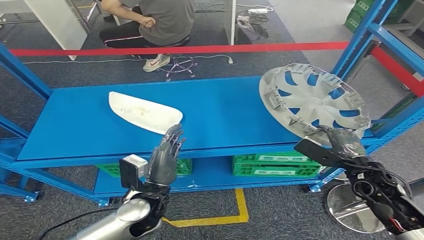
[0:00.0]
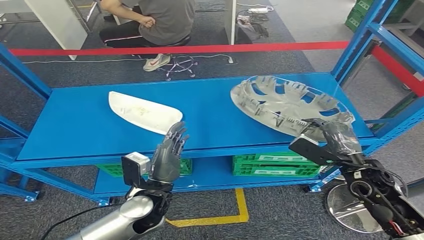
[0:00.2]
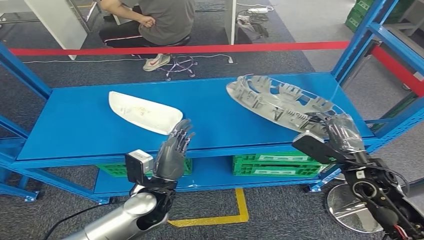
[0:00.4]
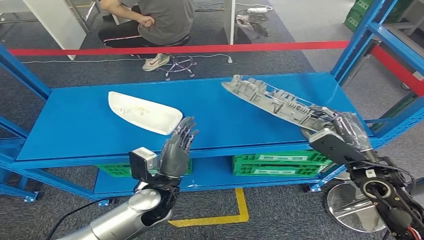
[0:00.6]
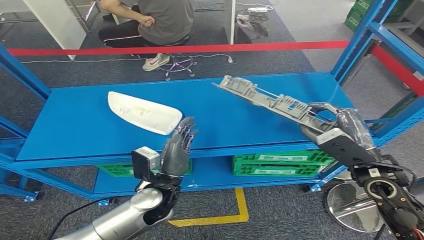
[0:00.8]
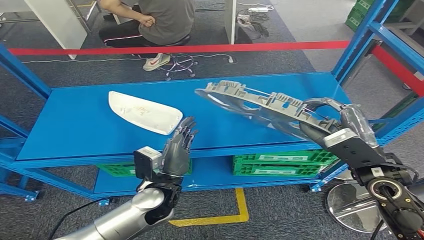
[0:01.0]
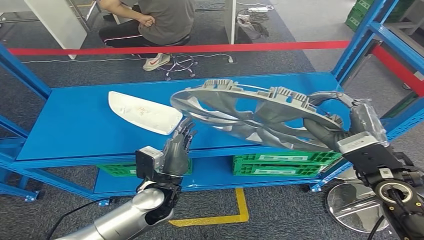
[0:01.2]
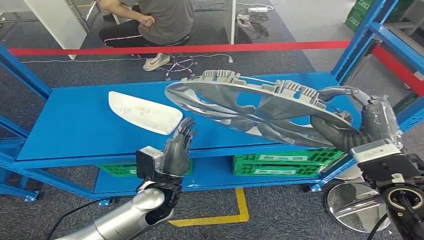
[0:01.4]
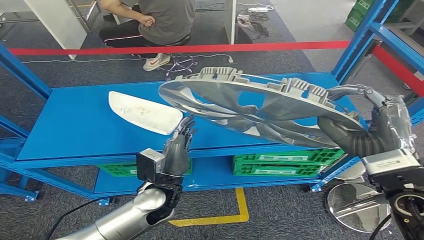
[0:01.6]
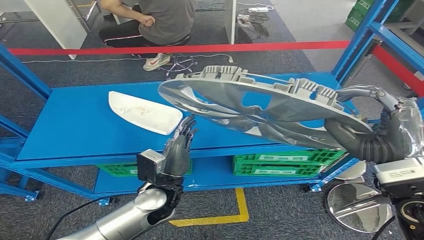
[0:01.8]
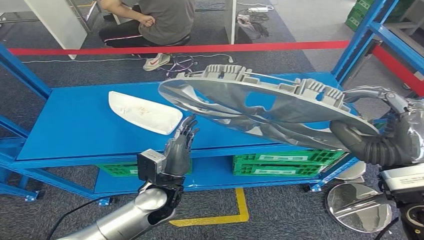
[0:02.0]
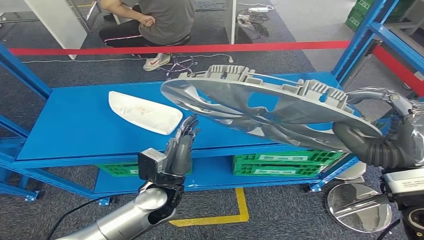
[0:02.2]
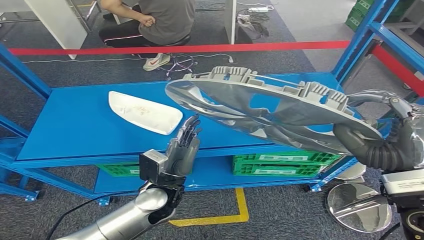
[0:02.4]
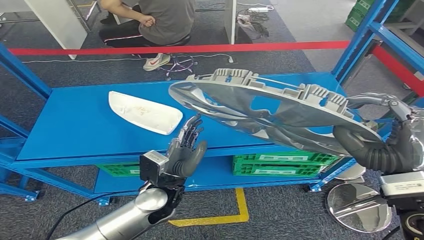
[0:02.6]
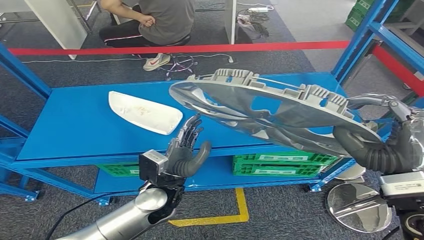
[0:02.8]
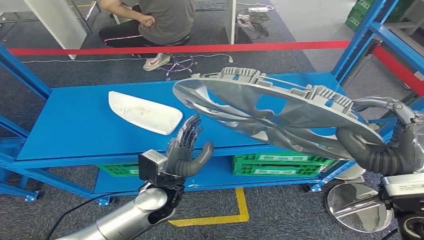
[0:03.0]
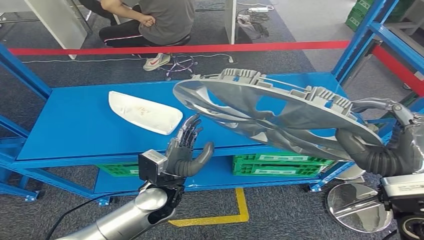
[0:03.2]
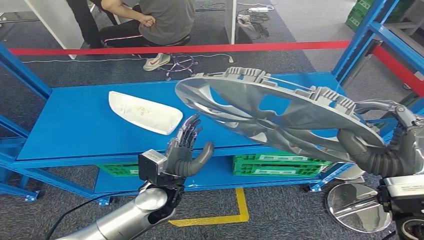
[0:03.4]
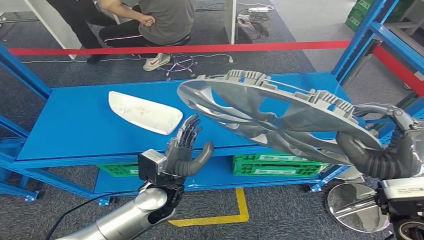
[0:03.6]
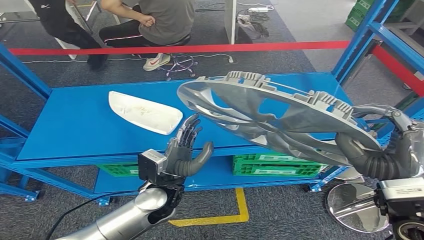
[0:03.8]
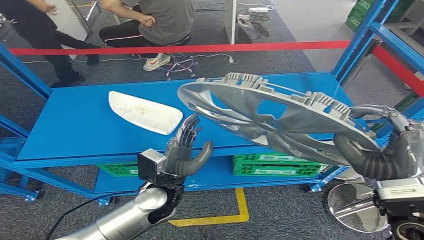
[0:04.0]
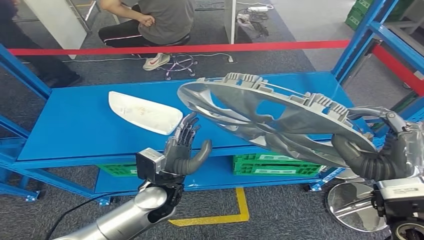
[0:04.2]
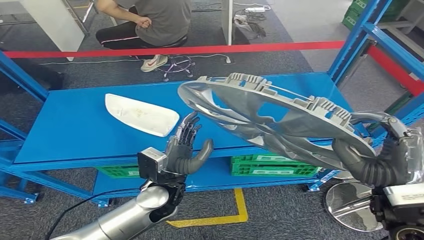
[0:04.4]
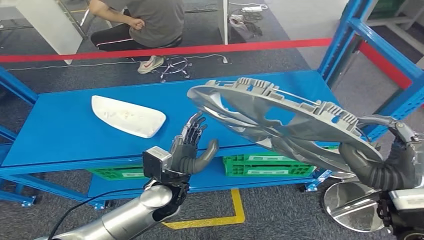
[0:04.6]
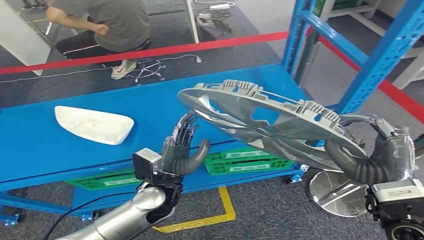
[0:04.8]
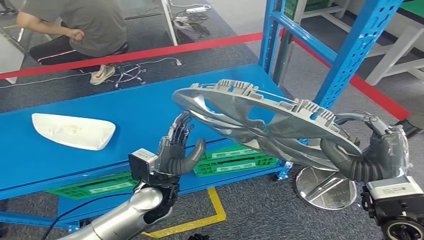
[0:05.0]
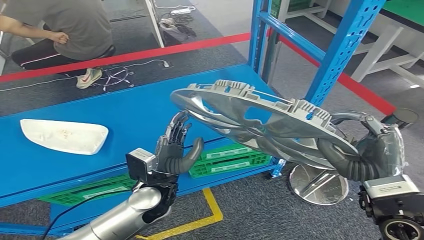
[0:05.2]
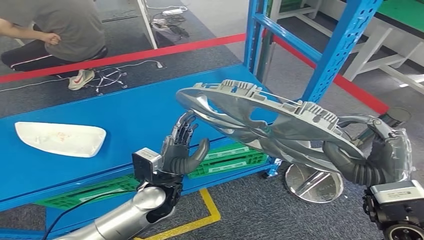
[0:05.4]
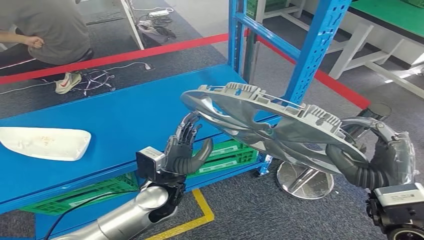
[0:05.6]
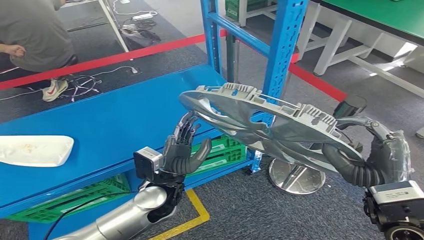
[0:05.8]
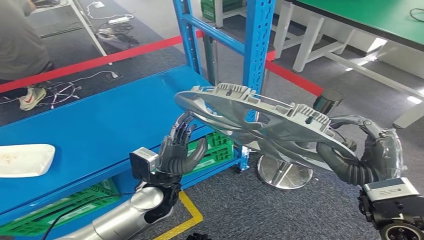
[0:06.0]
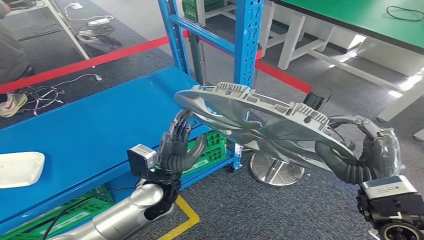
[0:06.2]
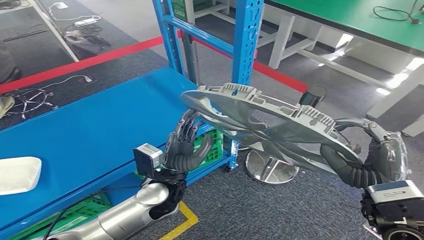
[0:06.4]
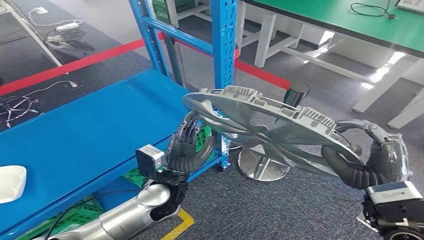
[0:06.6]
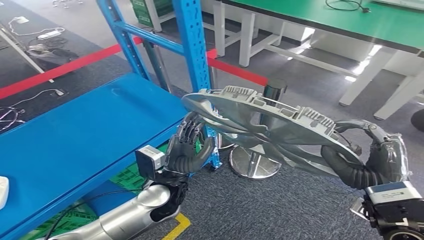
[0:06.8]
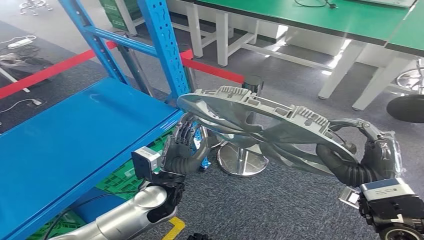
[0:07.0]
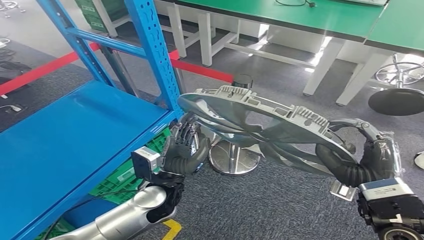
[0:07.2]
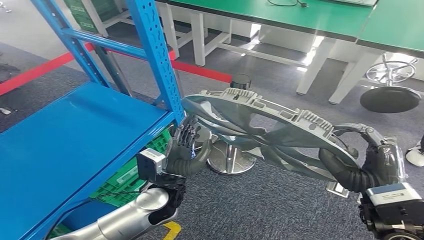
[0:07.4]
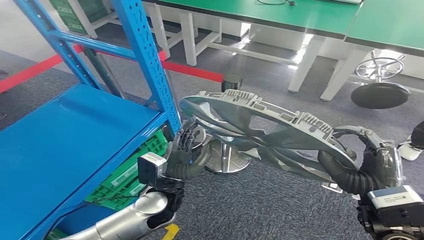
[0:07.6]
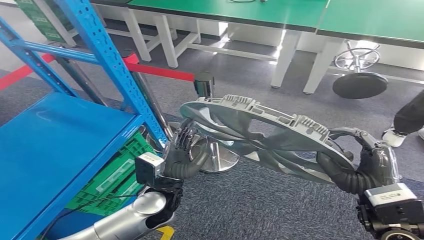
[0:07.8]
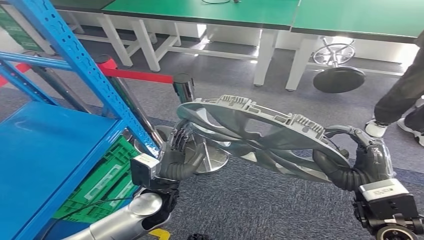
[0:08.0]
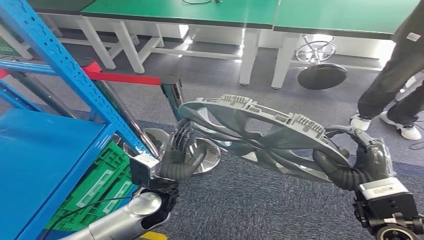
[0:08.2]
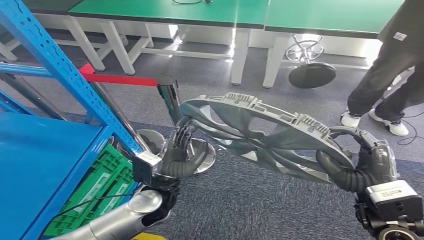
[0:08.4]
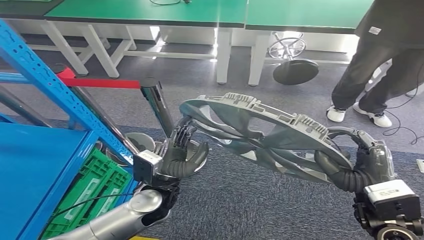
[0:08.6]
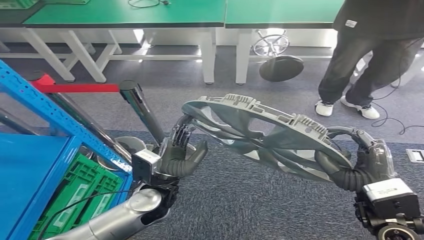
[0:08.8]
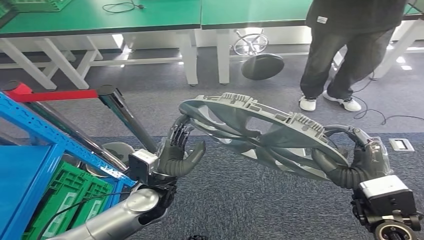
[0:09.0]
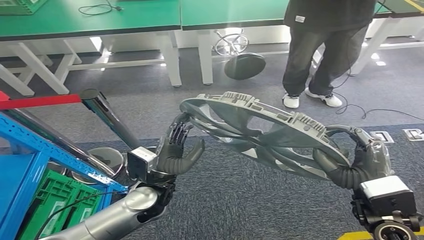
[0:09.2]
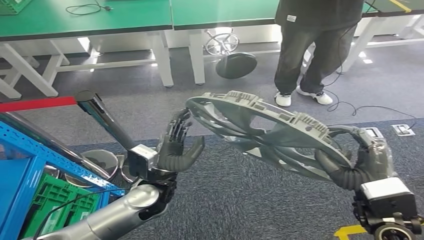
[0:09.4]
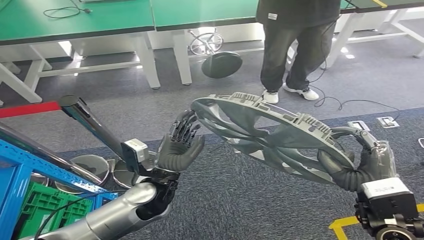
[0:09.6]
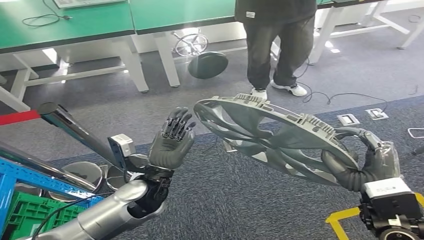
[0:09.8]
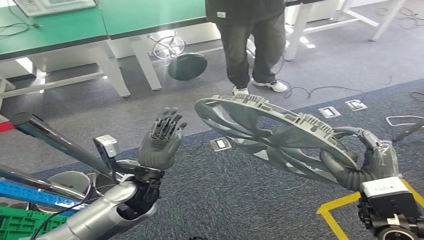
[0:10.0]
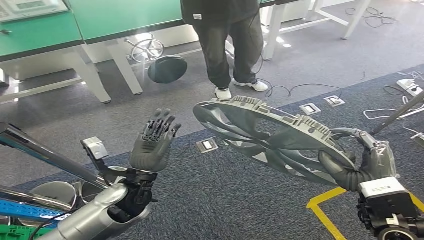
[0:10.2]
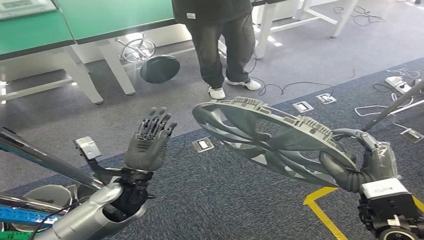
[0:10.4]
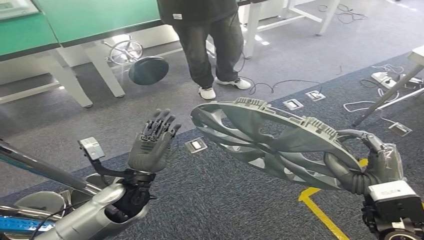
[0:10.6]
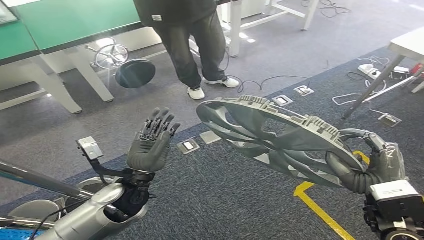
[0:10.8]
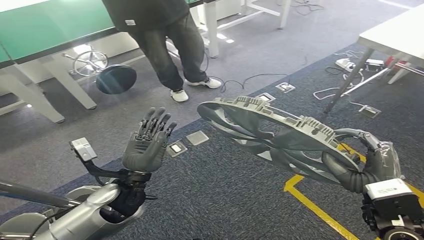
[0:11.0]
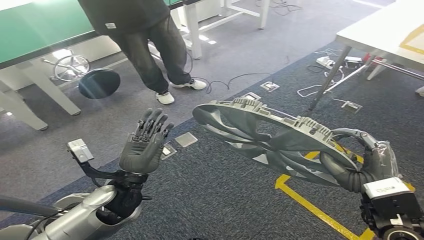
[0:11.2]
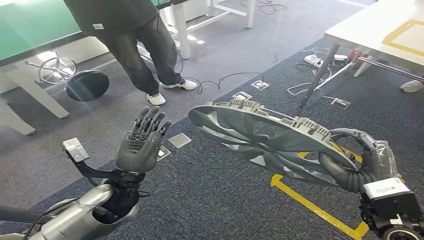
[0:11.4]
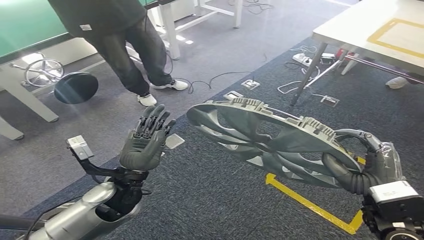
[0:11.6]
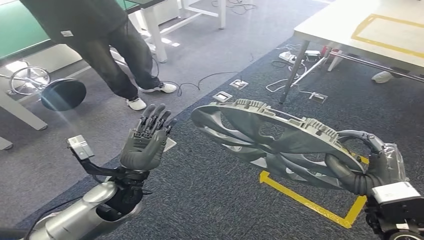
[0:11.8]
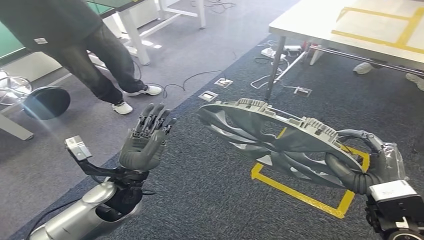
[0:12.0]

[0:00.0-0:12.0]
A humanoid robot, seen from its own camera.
0:01.6 to 0:03.0: The hands stay close to where they were, moving slightly.

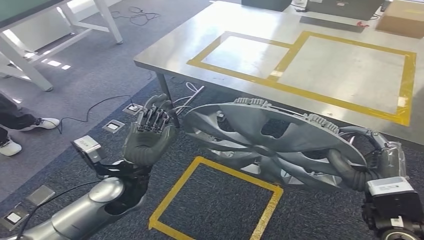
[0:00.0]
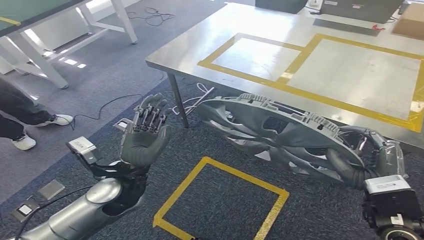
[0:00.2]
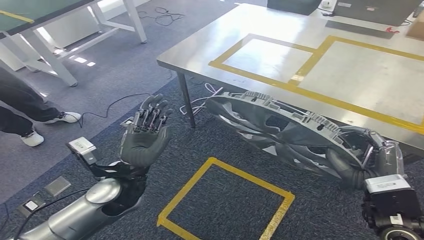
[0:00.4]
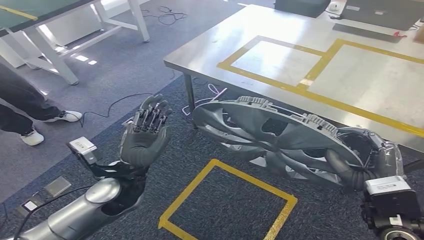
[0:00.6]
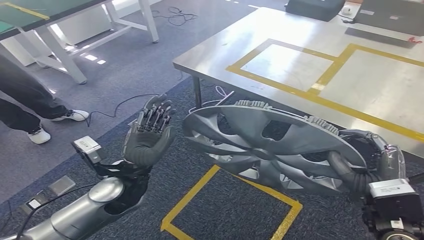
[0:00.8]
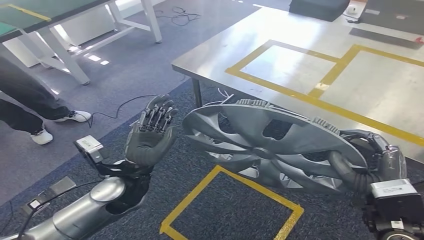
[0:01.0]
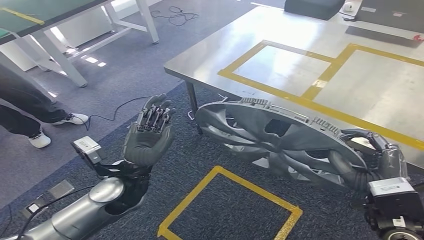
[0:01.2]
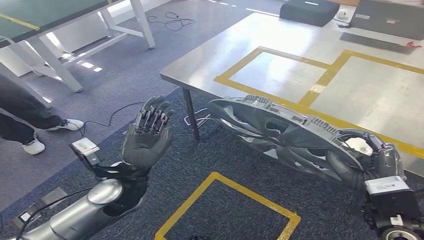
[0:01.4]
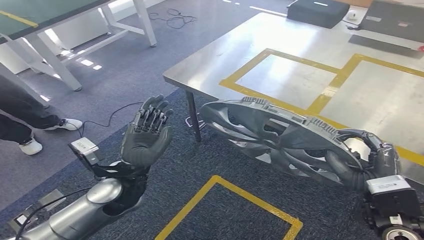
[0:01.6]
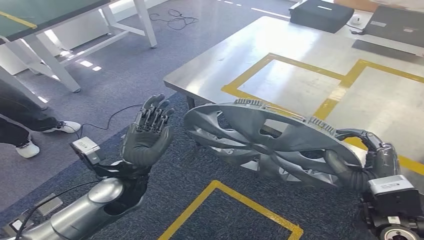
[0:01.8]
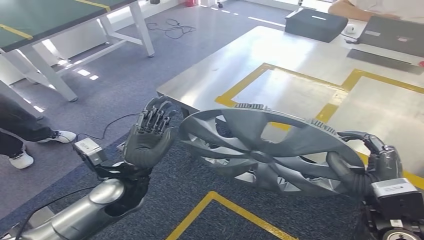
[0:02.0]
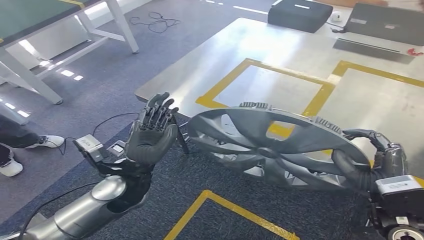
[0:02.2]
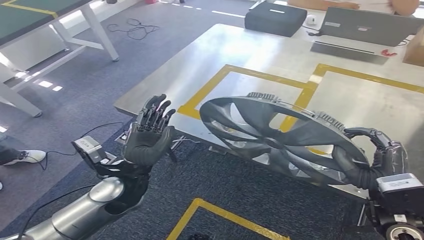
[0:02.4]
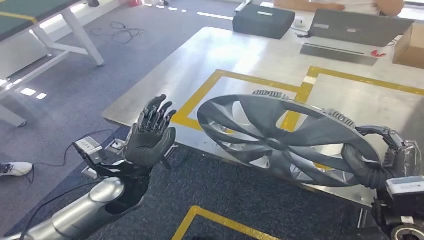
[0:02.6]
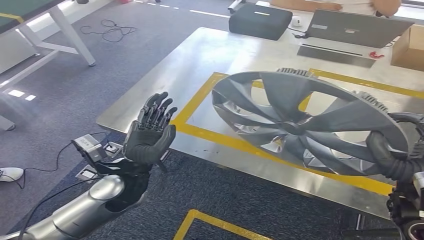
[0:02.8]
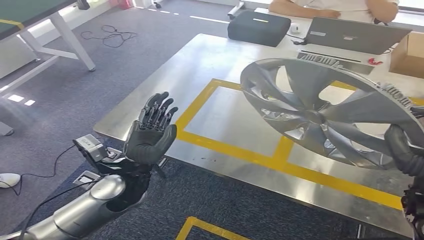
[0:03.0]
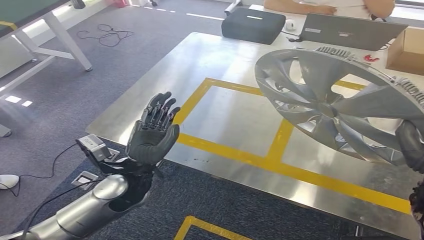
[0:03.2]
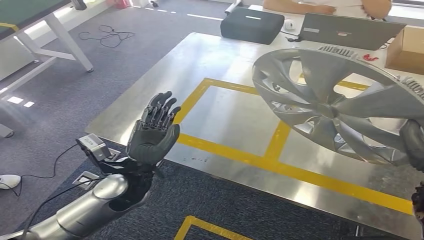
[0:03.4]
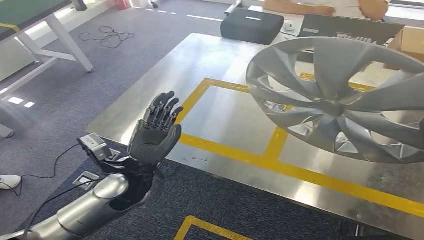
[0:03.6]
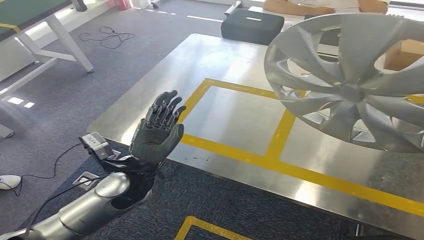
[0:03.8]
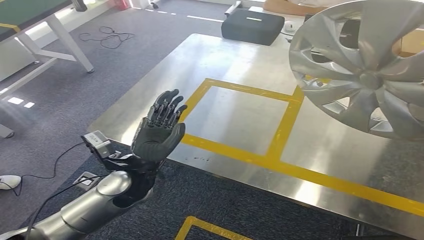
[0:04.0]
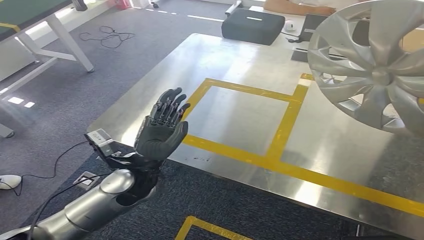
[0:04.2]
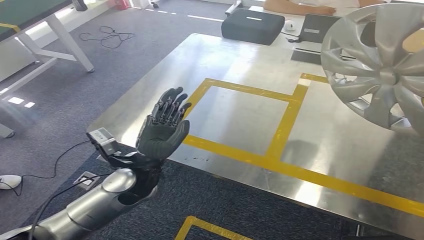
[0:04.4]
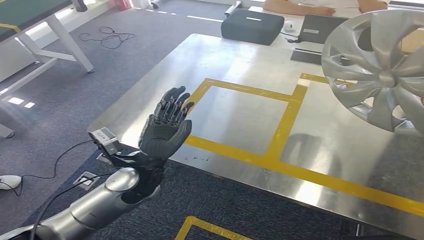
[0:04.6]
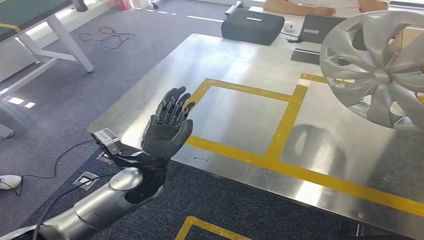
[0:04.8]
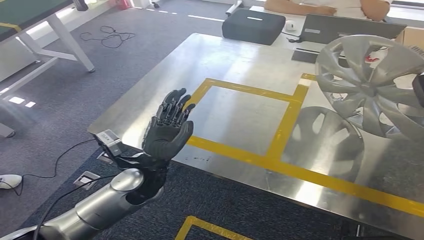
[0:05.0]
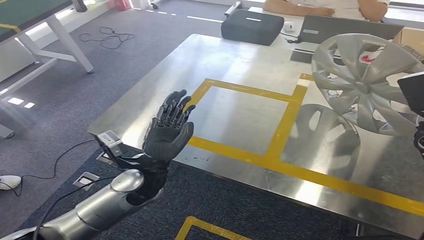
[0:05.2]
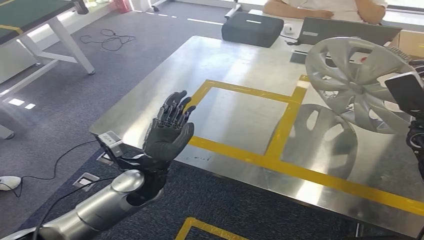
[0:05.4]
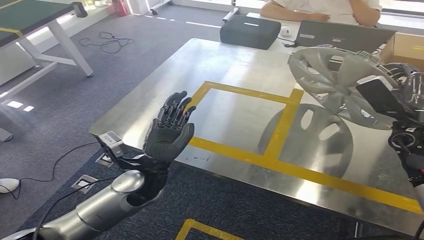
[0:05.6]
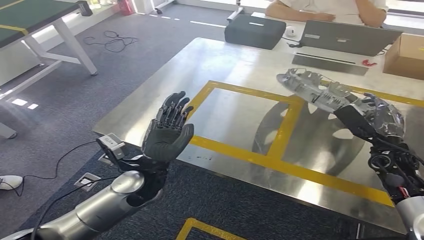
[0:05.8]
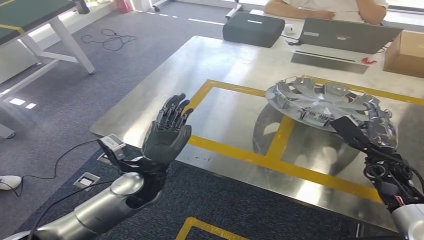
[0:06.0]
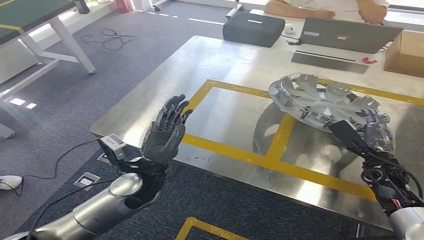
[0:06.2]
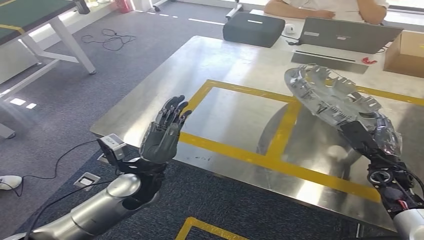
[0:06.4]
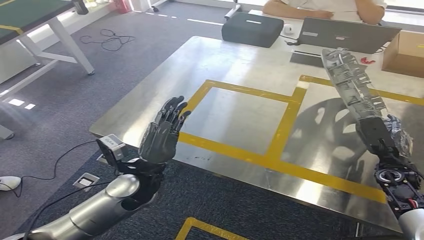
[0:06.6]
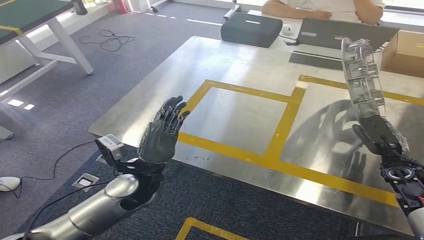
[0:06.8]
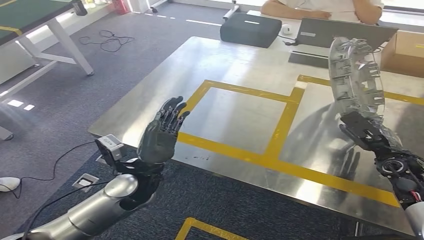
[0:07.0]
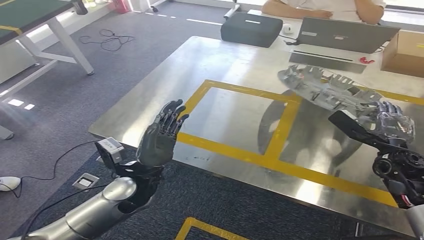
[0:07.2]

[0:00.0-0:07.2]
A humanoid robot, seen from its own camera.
Step, 0:00.0 to 0:04.8: Move the small component to the workbench.
